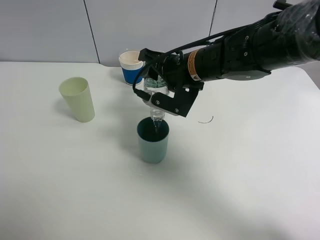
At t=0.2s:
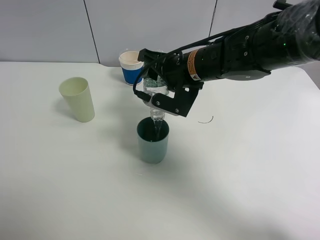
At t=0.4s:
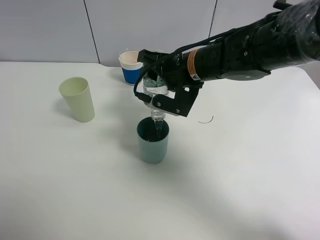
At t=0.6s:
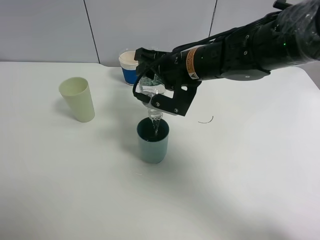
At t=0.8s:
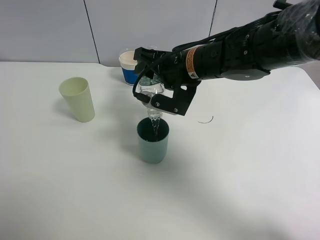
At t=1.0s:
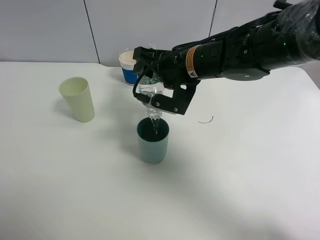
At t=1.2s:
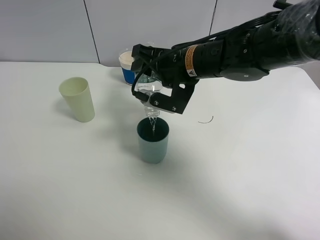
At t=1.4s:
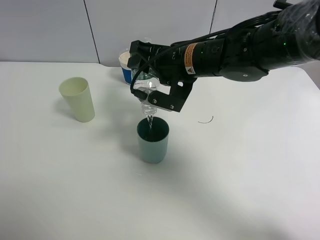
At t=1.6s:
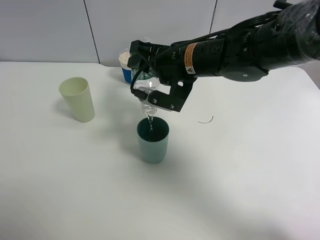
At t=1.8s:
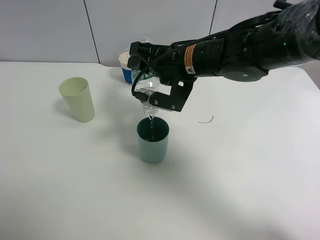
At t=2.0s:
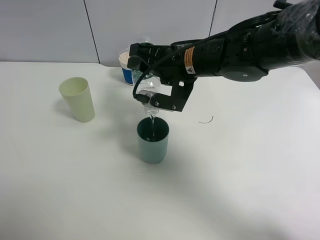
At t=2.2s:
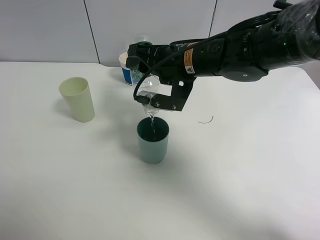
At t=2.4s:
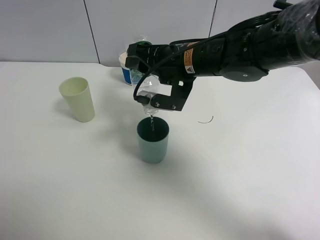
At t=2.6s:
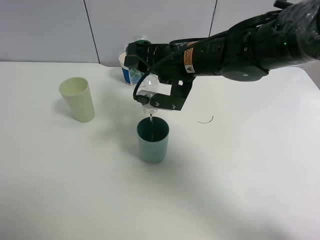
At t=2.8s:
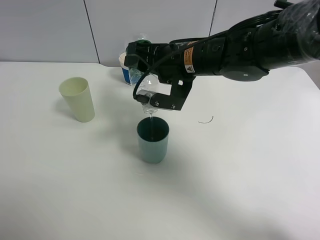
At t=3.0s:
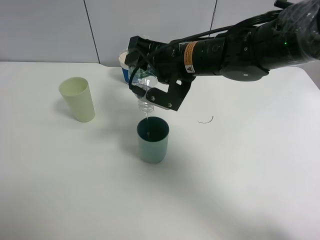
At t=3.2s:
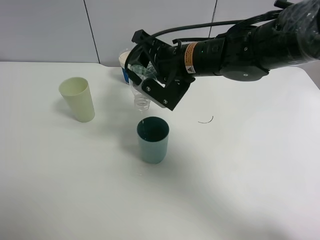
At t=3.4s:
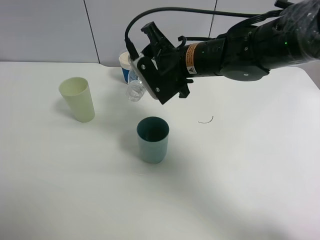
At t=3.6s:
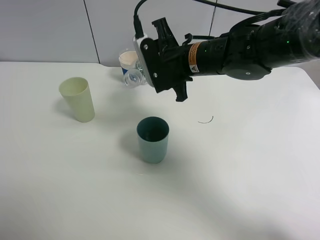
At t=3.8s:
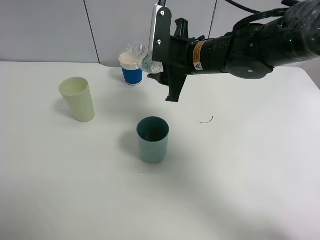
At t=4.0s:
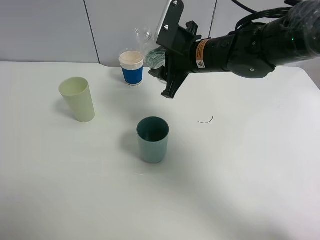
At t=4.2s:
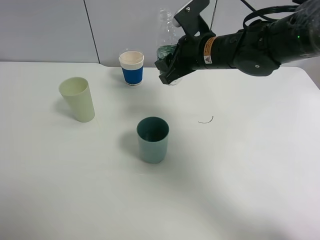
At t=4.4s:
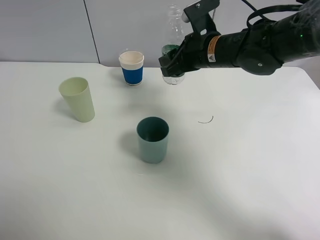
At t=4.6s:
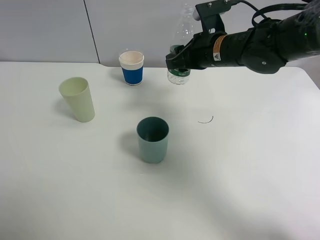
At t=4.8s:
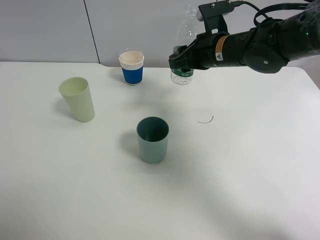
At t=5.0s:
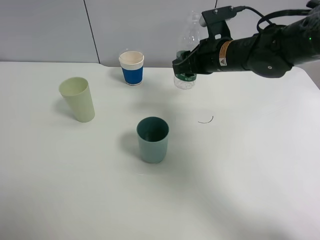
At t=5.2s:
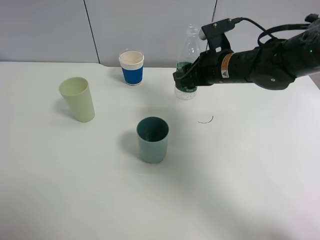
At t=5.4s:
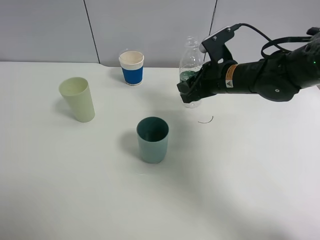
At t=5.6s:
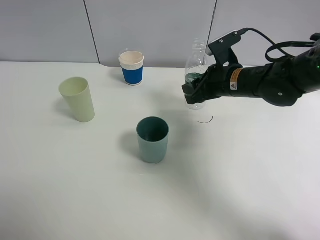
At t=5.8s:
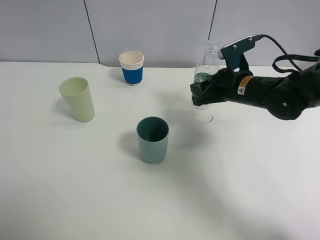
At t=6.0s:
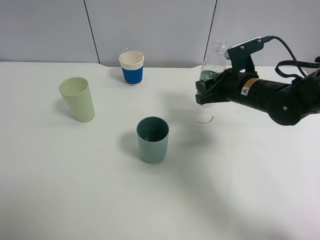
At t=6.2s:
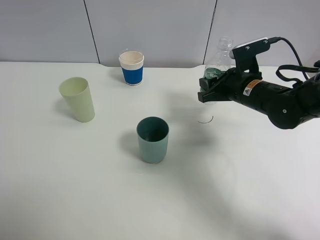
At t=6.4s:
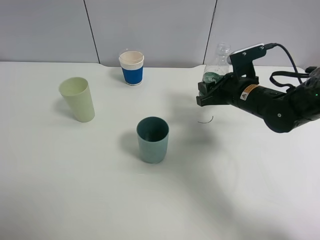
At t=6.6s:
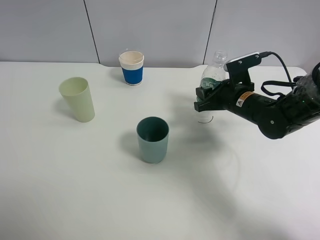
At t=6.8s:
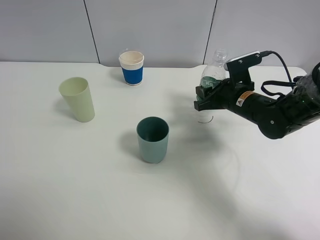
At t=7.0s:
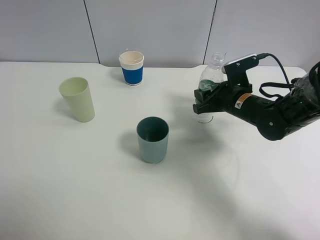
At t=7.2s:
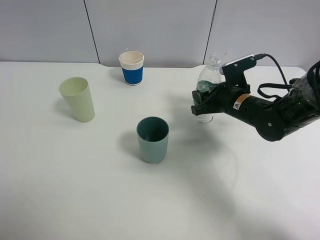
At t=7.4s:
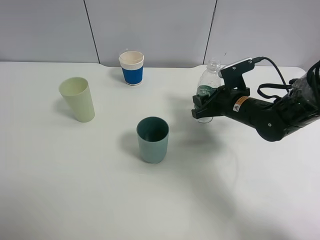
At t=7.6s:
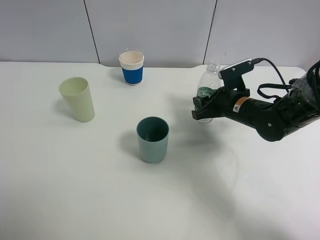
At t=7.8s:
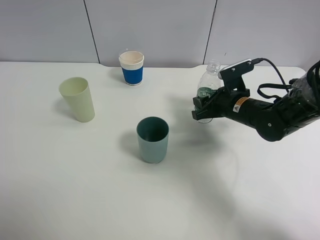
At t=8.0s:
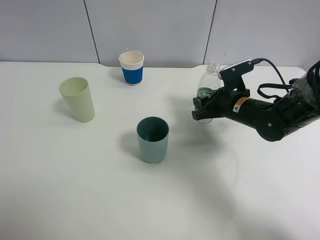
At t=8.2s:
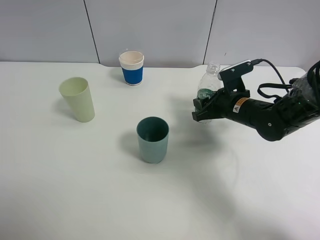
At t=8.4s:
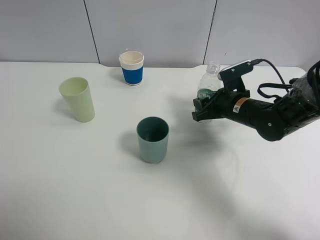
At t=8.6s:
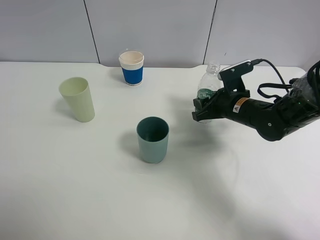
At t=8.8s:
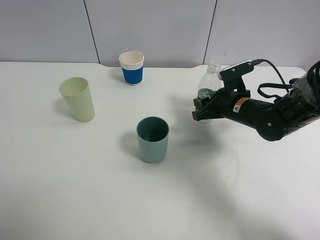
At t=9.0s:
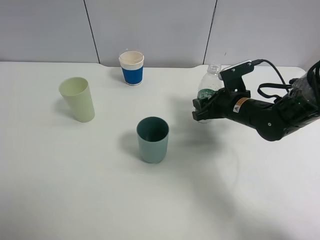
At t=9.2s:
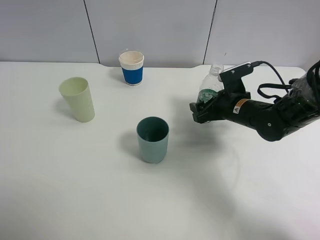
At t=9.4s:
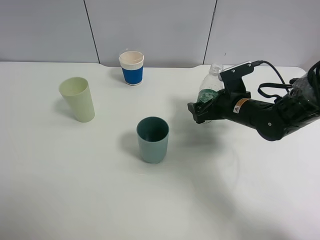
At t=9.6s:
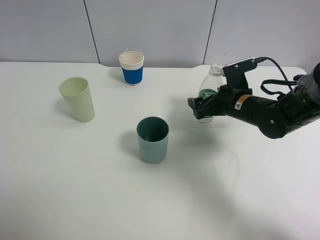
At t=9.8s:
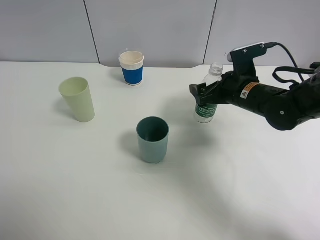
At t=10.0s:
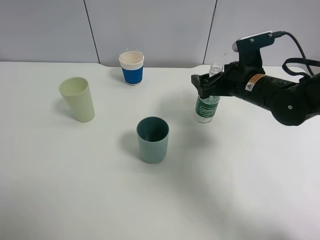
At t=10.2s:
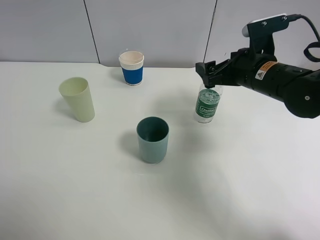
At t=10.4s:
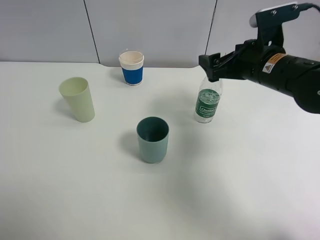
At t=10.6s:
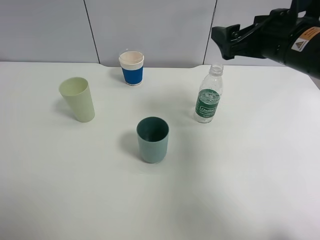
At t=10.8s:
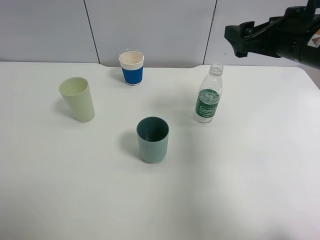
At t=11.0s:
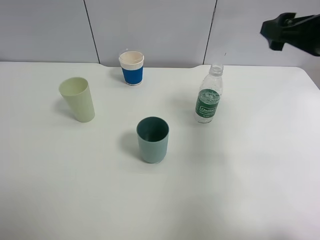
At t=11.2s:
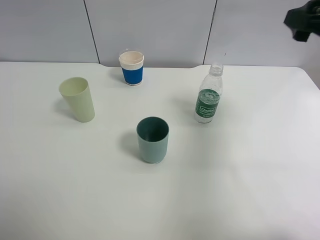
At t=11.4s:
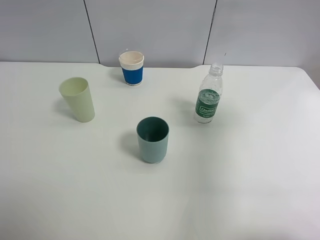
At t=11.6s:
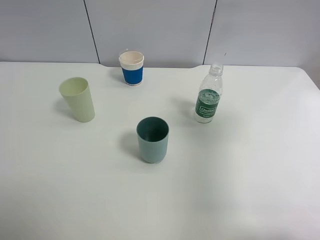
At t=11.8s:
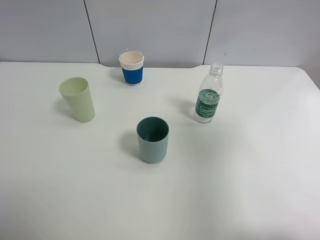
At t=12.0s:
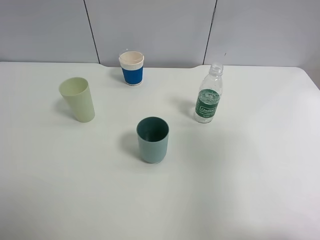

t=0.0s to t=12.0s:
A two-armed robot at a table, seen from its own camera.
Task of the whole recording: use a clamp to hold the bottle of the drink, pour the beverage into a random cup, then clamp the cup containing the drink and pour the drink into another random cup.
Step, t=0.0s to t=3.2s: Pour water into the blue plastic cup with right gripper.
Step, t=3.4s to t=9.8s: Place the water bottle on the table with right gripper.
t=0.0s to t=3.0s: There are only small adjustments of the grippers.
t=3.0s to t=4.4s: The right gripper travels to the right by roughly 5 cm.
t=4.4s to t=6.0s: The right gripper heads to the right and downward, covering roughly 10 cm.
t=6.0s to t=7.6s: The grippers make only small movements.
t=7.6s to t=9.0s: Both grippers stay put.
t=9.0s to t=10.4s: The right gripper shifts approximately 15 cm upward, and opens.
t=10.4s to t=12.0s: The right gripper is displaced backward, upward and to the right by some 25 cm.

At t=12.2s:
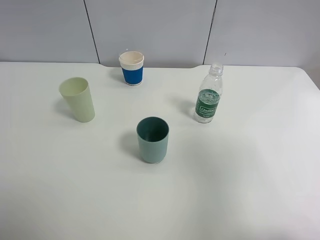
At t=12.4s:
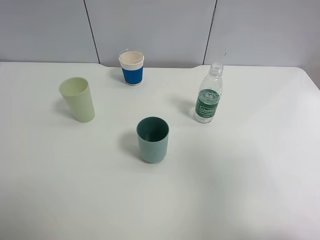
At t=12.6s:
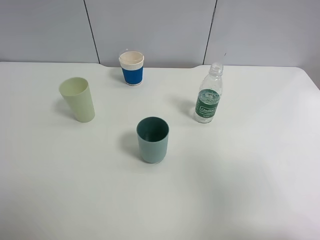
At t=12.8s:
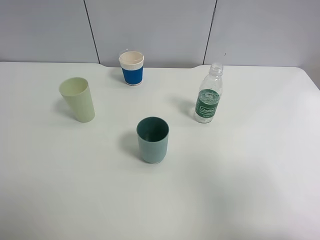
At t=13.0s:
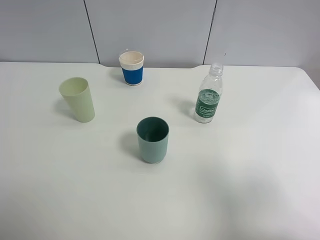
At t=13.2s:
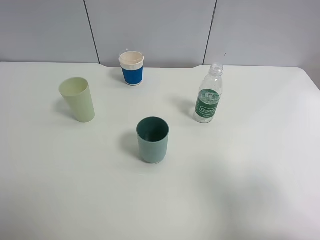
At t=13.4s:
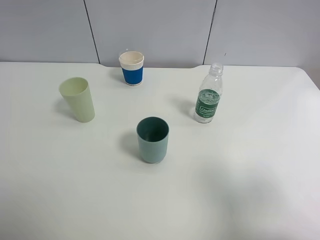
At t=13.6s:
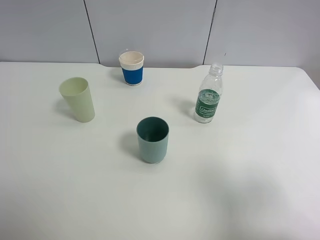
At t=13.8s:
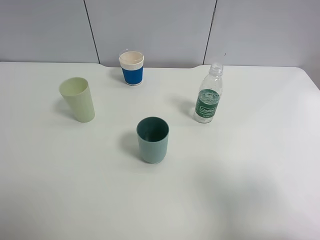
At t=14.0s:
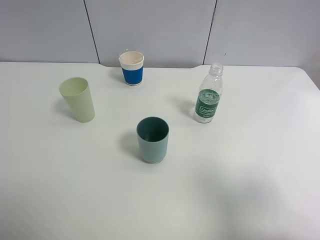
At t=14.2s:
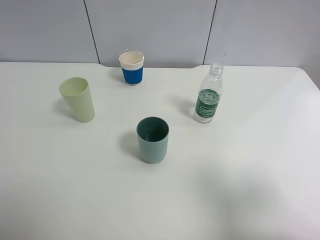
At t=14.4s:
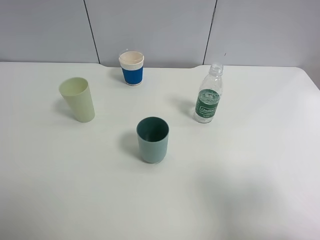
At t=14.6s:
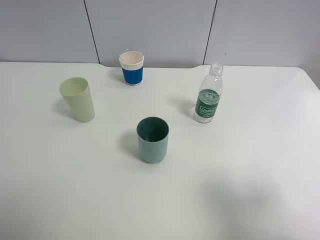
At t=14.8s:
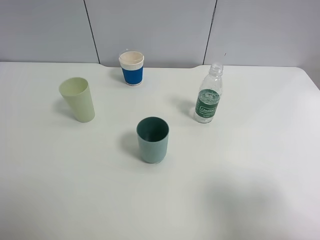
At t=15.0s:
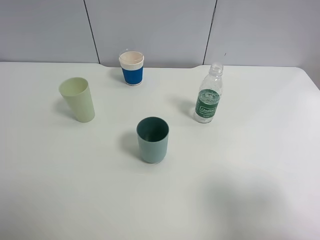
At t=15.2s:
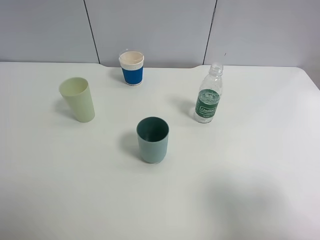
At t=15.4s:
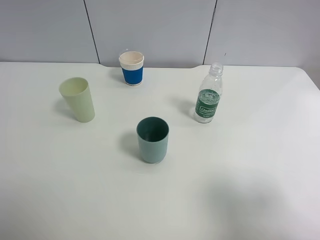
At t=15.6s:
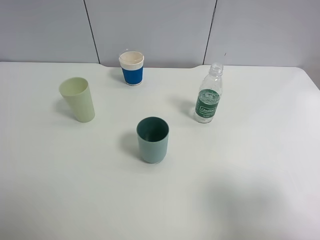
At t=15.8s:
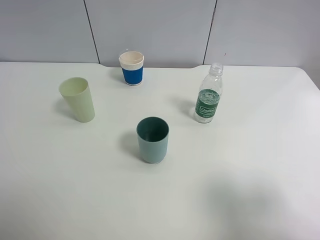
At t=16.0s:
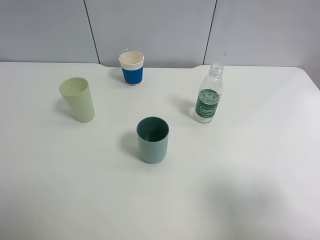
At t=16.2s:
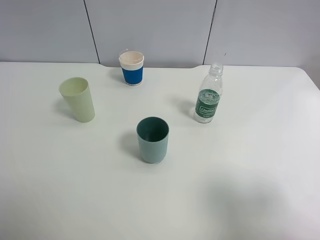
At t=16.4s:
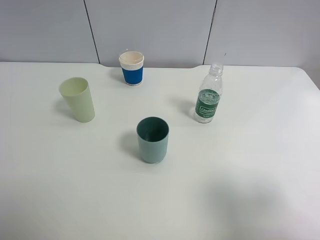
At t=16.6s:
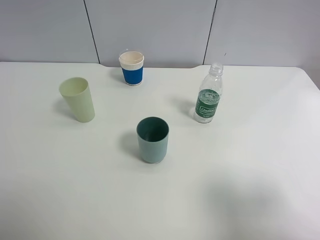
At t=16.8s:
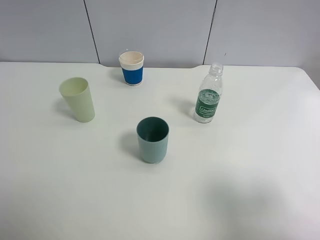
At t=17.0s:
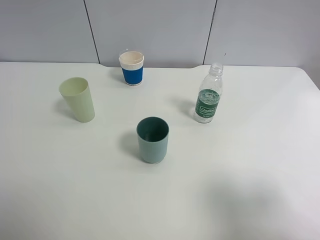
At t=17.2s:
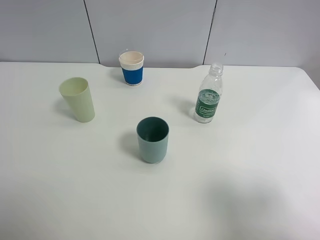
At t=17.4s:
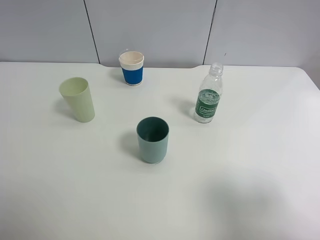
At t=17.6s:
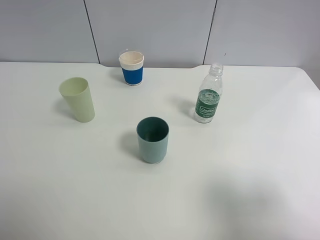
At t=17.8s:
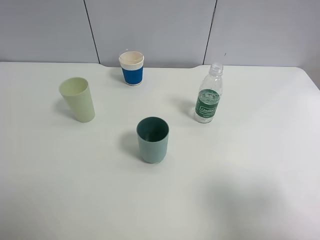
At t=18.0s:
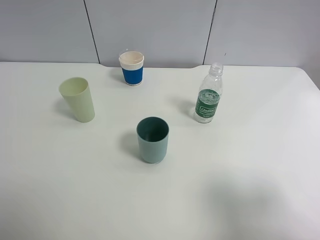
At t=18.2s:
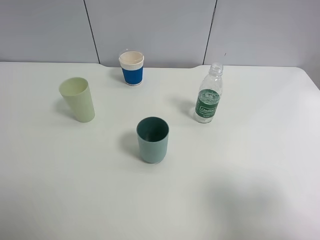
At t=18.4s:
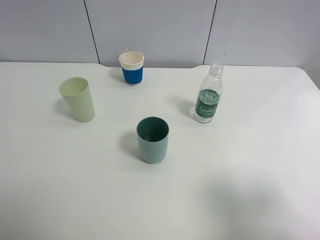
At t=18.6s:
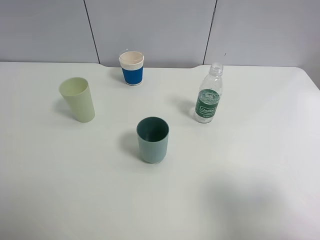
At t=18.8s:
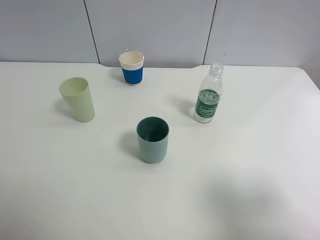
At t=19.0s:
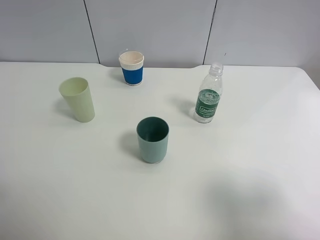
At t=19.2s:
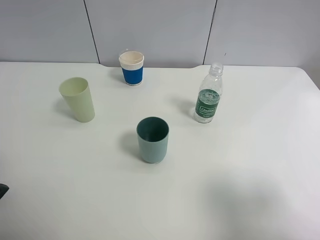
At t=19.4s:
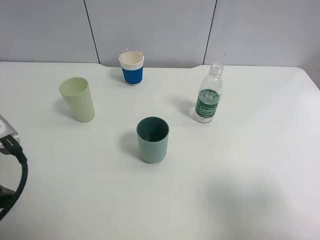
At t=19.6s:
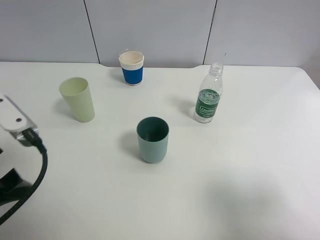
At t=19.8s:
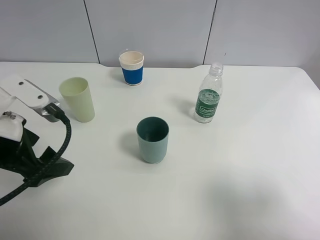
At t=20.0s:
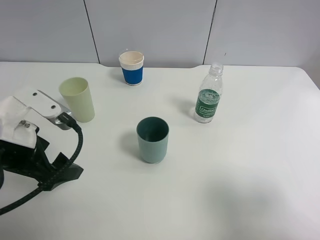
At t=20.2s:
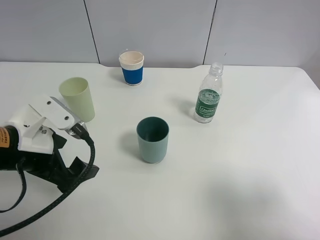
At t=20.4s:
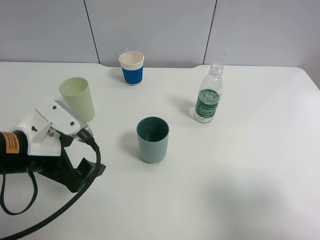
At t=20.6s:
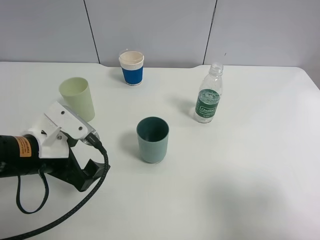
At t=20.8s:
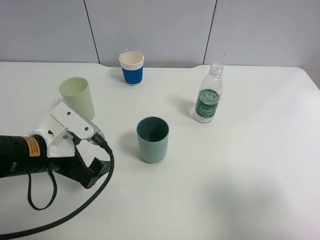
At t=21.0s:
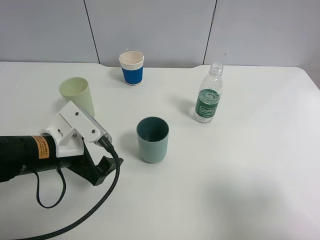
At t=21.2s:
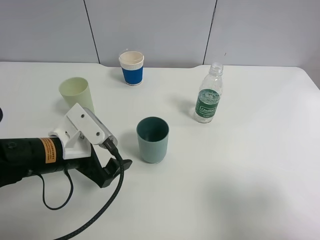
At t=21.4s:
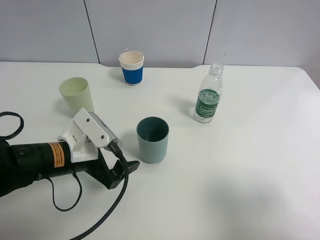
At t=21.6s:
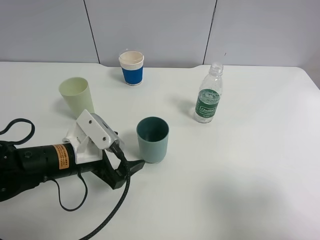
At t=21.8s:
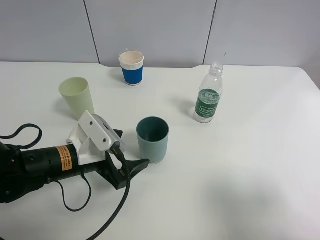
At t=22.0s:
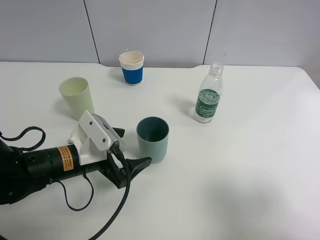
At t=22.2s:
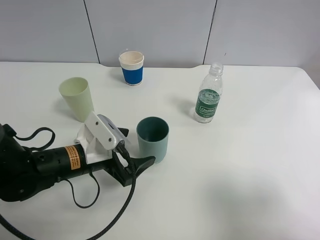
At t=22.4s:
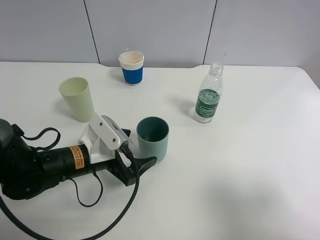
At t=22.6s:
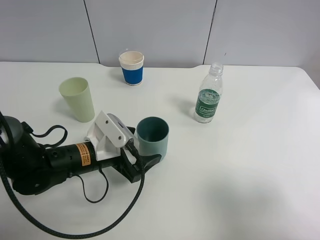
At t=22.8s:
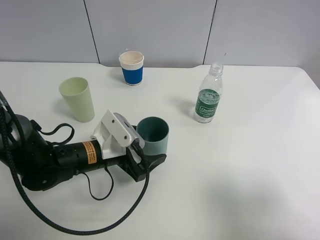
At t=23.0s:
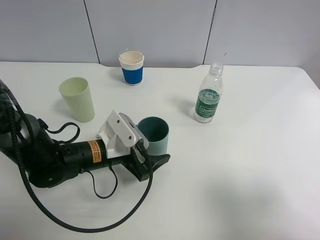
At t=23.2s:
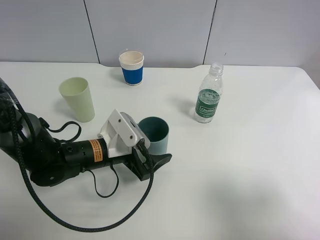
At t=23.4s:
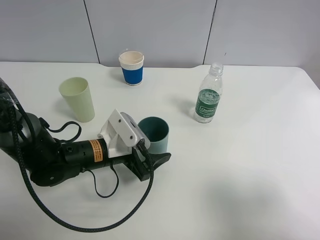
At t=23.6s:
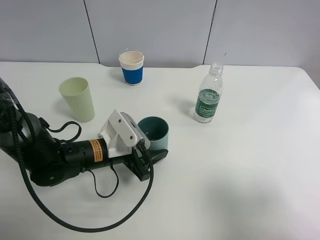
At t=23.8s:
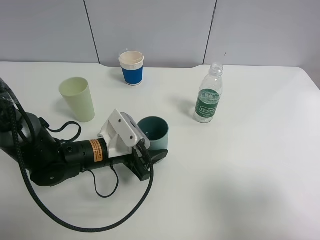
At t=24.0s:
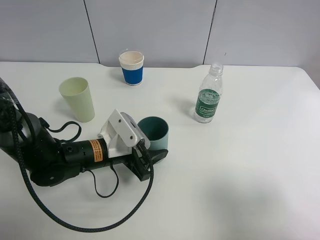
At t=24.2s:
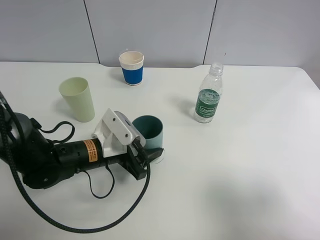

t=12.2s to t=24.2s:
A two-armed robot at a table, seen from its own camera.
Task of the whole recording: use a clamp to hold the bottle of the drink, pour the beverage into a random cup, then clamp the cup containing the drink and pour the drink into another random cup.
t=12.2s to t=13.8s: The right gripper travels downward by approximately 5 cm.
t=15.2s to t=16.6s: Neither gripper changes place.
t=18.2s to t=19.8s: The left gripper heads forward, to the right and downward, covering roughly 20 cm.
t=19.8s to t=21.2s: The left gripper goes roughly 10 cm downward and to the right.
t=21.2s to t=22.6s: The left gripper moves about 5 cm.
t=22.6s to t=24.2s: The left gripper closes.
